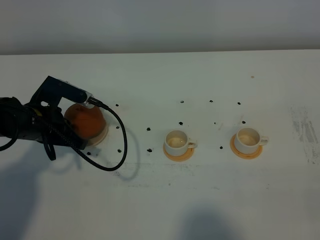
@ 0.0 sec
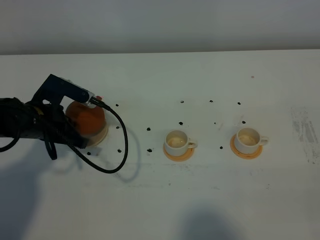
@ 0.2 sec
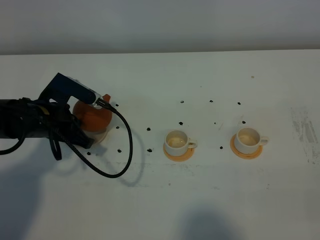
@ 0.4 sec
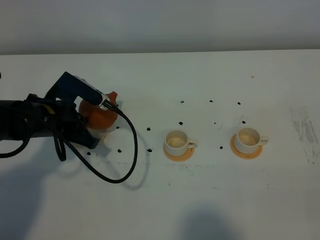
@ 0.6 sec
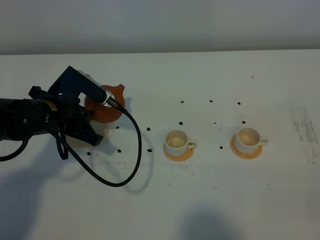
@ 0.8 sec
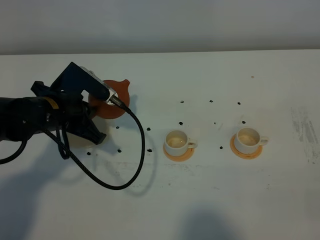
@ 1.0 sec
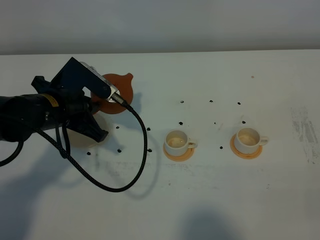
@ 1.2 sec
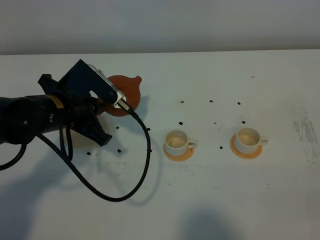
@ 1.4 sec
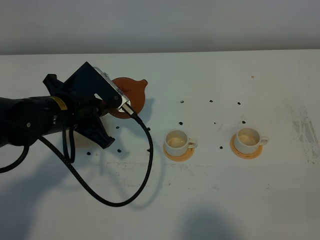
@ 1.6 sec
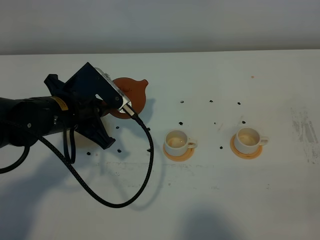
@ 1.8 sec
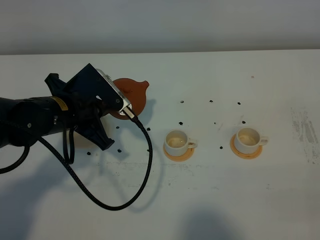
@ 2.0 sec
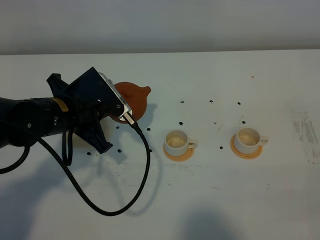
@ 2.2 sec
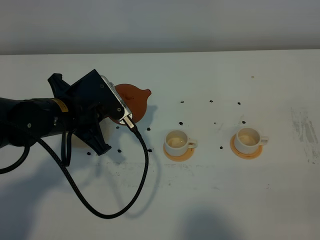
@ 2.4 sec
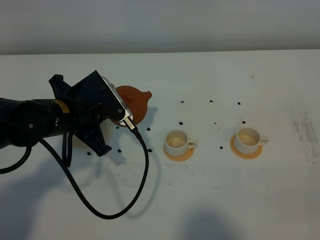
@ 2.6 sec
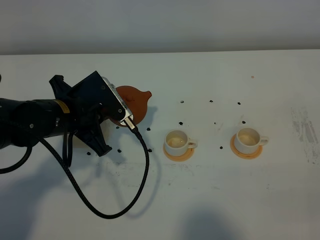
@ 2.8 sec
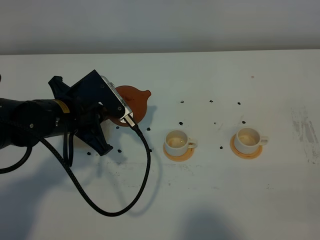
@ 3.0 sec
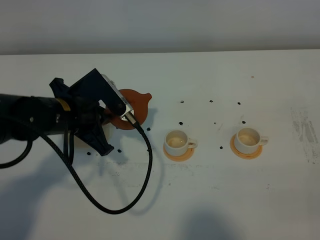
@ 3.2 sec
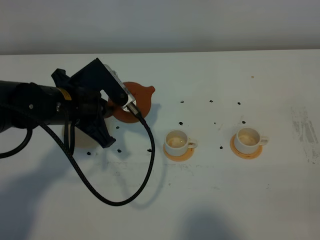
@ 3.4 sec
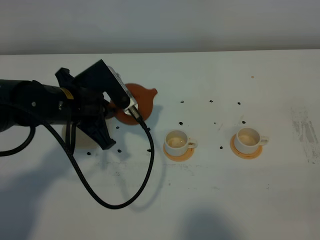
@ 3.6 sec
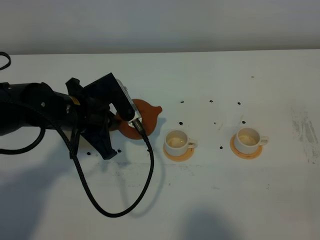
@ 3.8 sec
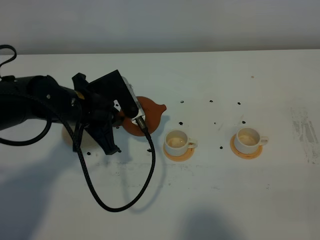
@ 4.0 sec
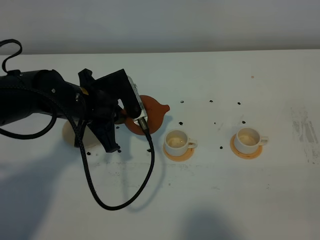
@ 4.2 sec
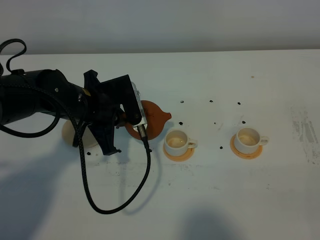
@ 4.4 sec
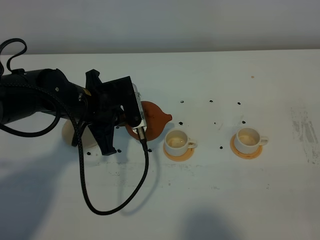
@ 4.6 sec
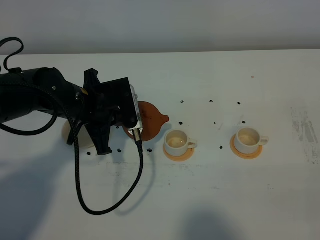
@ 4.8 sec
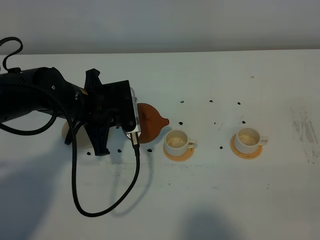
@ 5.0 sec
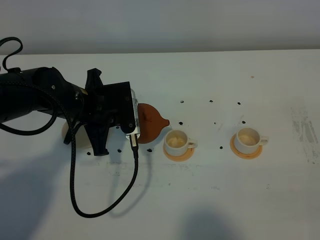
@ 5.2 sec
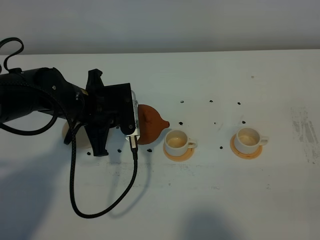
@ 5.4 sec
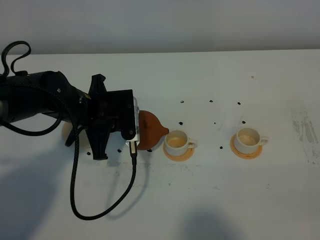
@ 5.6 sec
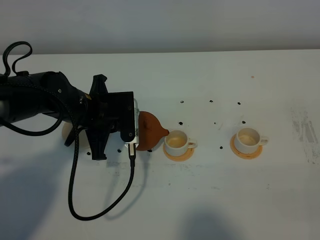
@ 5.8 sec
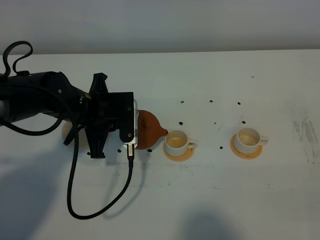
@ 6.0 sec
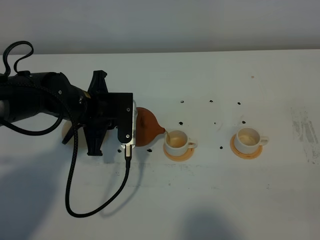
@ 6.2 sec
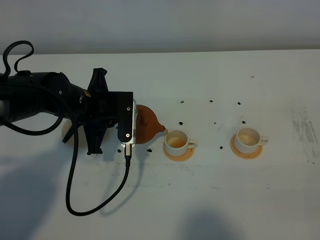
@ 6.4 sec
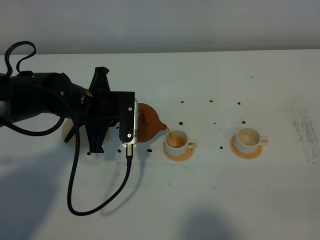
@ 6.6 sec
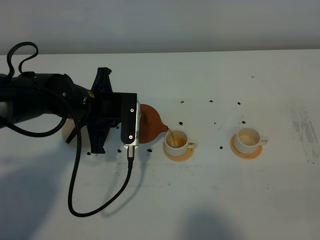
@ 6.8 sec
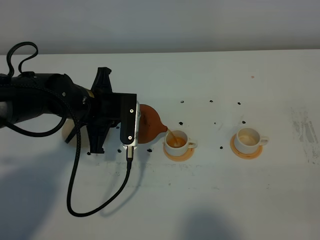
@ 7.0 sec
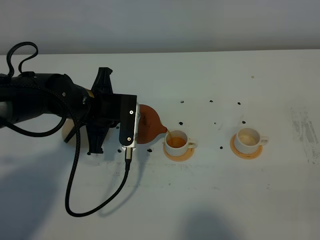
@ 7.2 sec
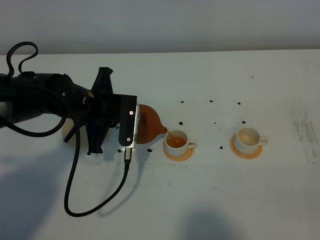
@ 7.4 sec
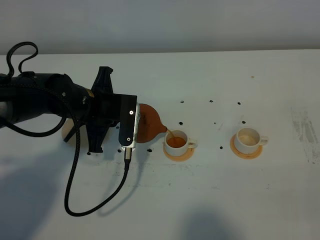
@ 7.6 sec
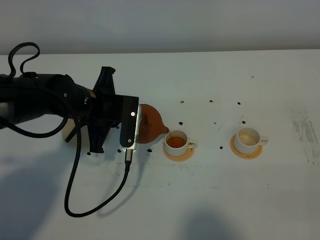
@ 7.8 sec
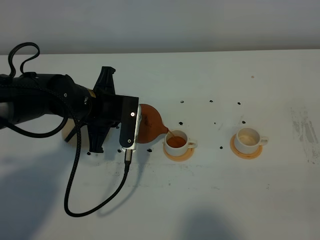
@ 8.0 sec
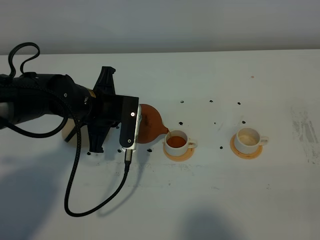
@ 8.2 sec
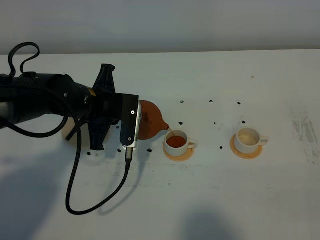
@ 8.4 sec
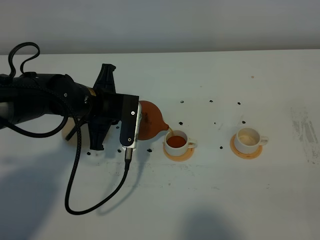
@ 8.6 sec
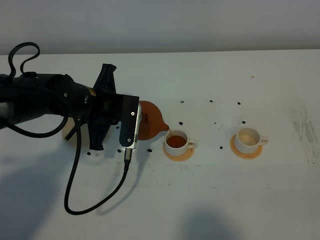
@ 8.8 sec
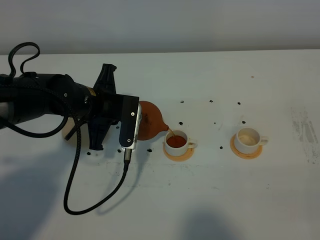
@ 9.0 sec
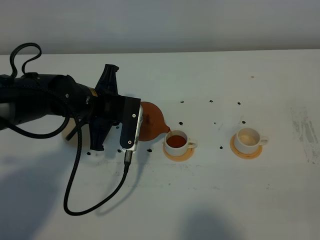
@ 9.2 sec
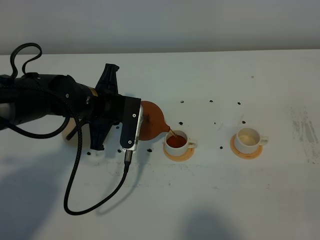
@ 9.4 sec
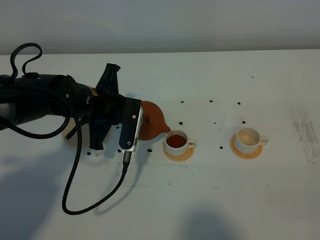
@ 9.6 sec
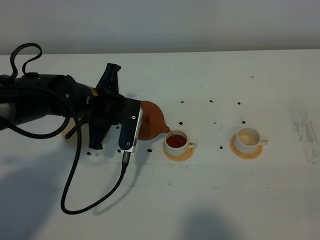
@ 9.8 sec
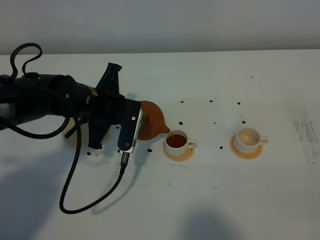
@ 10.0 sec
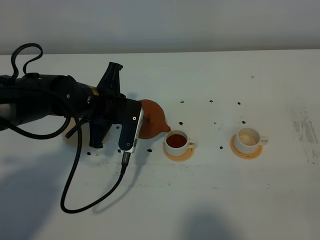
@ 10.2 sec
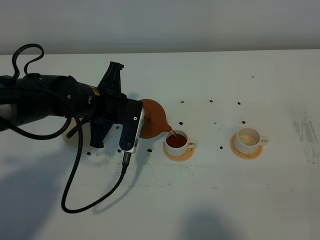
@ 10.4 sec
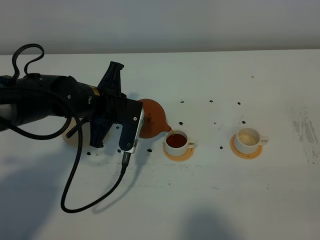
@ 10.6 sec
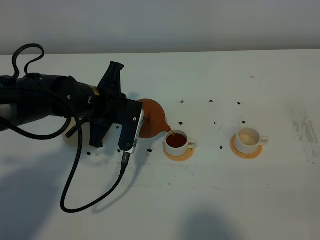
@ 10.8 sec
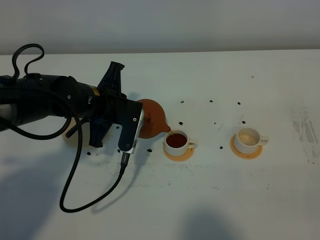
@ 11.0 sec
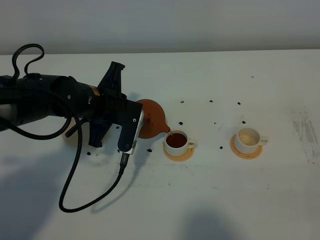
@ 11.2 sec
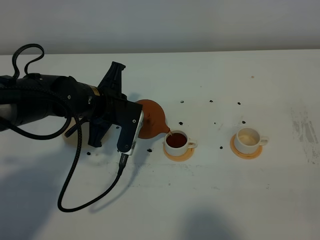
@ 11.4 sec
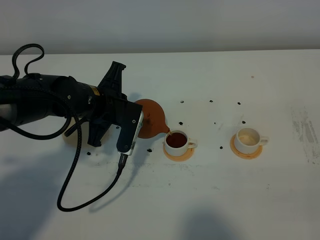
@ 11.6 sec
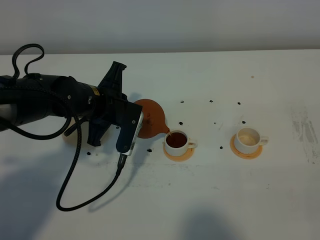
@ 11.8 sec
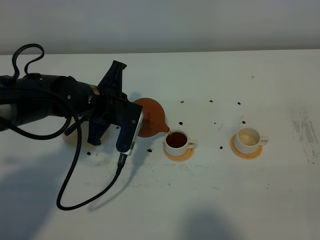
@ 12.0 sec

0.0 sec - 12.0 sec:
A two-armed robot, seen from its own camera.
Task of the whole recording: grasp the brown teapot and pour the tea into the two white teacups one by one, put the brown teapot back in its original place.
0.0 sec - 1.6 sec: The left gripper travels to the right and upward by some 10 cm.
1.6 sec - 3.0 sec: The grippers move only a little.
4.4 sec - 6.0 sec: There are only small adjustments of the grippers.
6.0 sec - 7.6 sec: There are only small adjustments of the grippers.
7.6 sec - 9.0 sec: The two grippers keep their place.
9.0 sec - 12.0 sec: There are only small adjustments of the grippers.

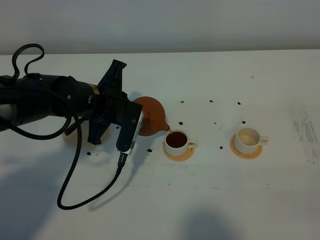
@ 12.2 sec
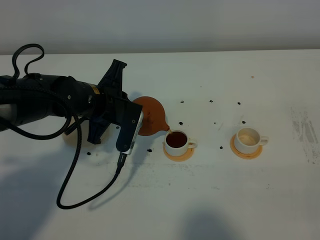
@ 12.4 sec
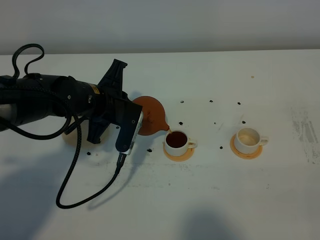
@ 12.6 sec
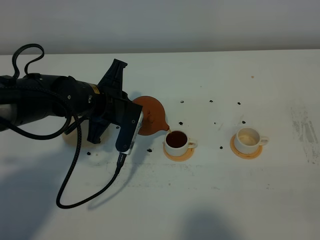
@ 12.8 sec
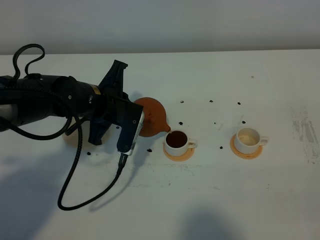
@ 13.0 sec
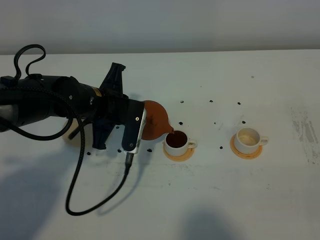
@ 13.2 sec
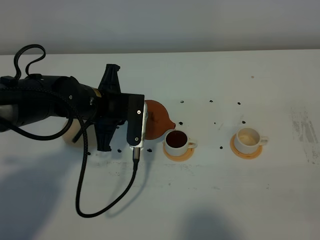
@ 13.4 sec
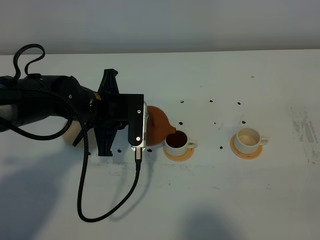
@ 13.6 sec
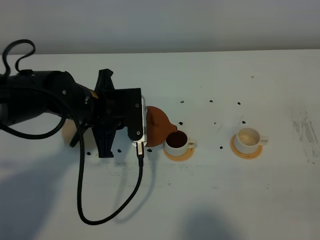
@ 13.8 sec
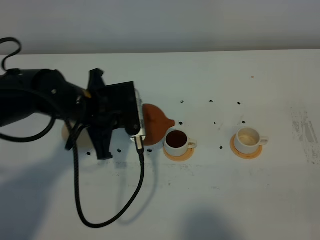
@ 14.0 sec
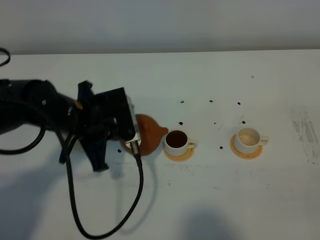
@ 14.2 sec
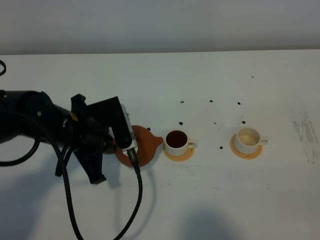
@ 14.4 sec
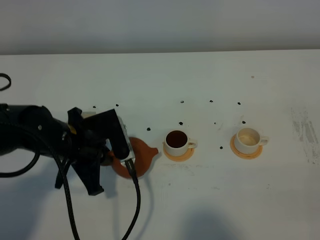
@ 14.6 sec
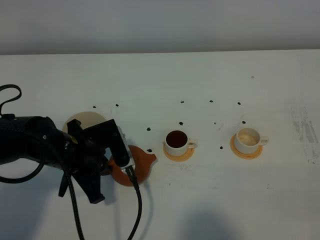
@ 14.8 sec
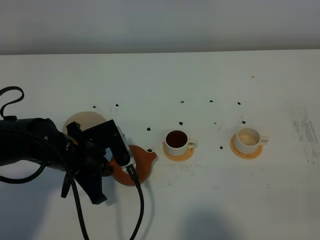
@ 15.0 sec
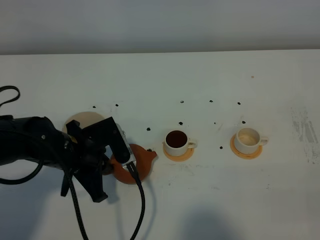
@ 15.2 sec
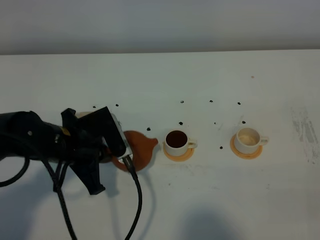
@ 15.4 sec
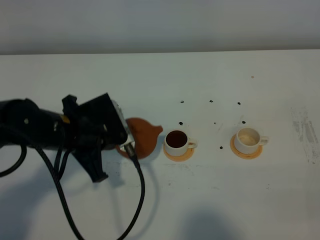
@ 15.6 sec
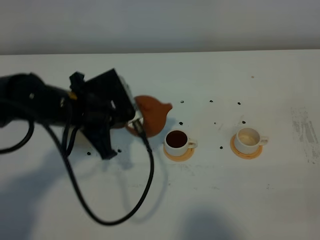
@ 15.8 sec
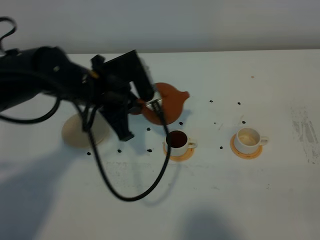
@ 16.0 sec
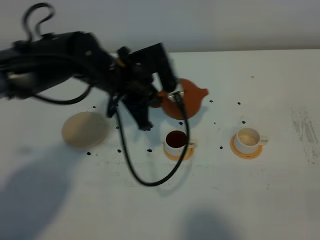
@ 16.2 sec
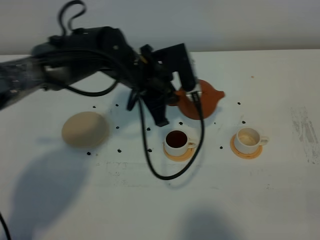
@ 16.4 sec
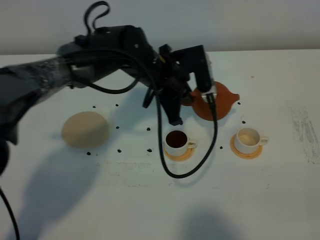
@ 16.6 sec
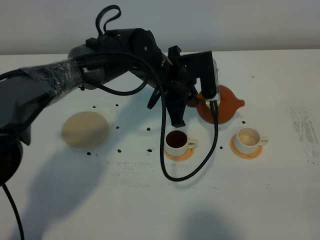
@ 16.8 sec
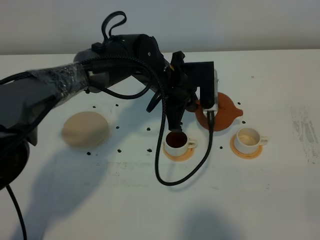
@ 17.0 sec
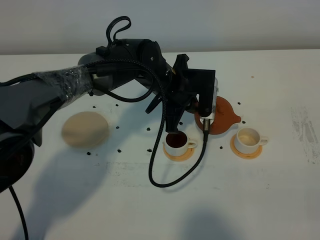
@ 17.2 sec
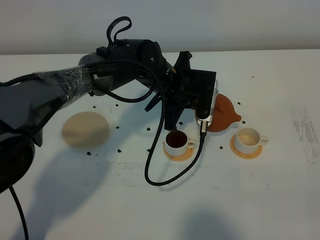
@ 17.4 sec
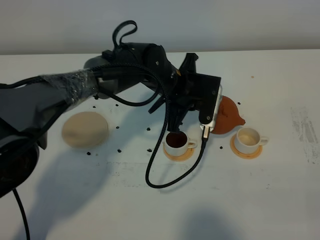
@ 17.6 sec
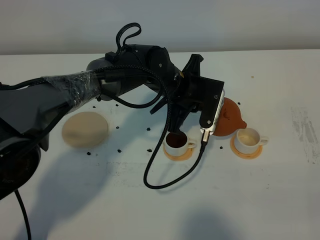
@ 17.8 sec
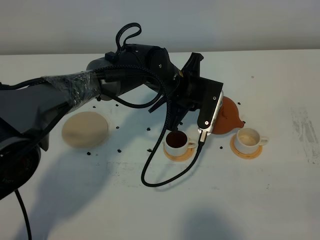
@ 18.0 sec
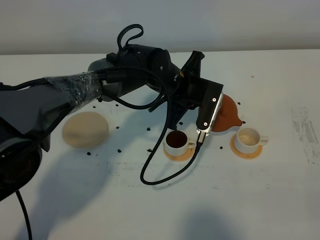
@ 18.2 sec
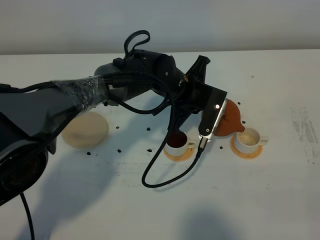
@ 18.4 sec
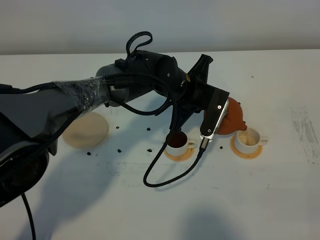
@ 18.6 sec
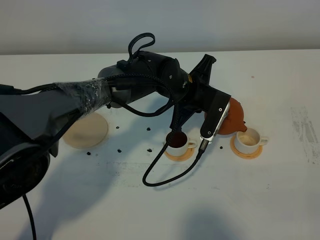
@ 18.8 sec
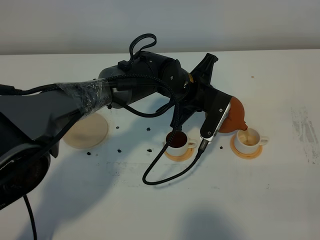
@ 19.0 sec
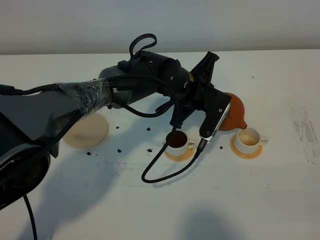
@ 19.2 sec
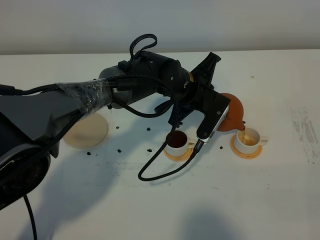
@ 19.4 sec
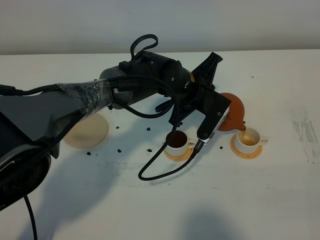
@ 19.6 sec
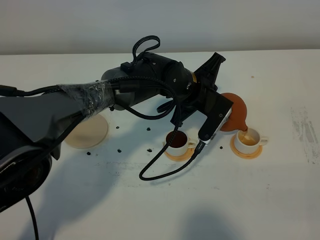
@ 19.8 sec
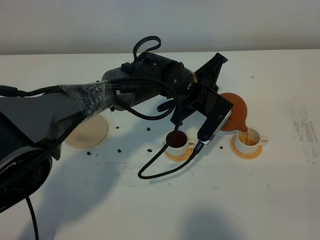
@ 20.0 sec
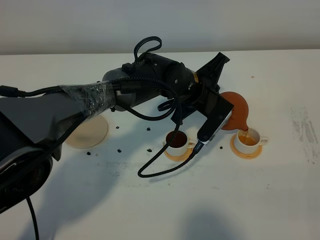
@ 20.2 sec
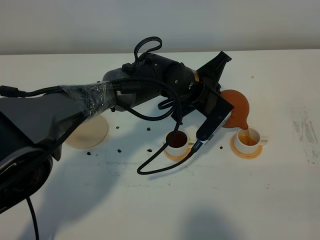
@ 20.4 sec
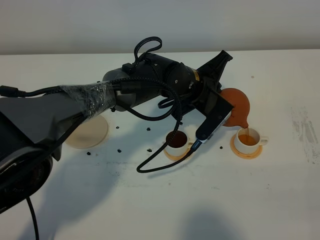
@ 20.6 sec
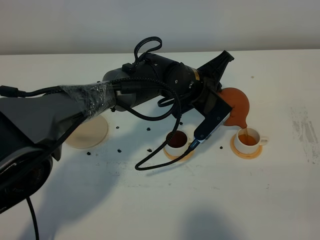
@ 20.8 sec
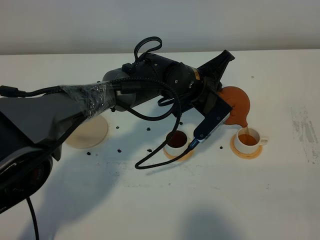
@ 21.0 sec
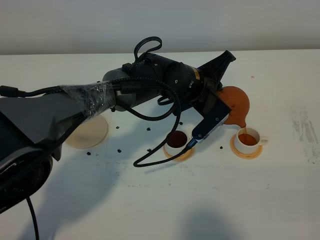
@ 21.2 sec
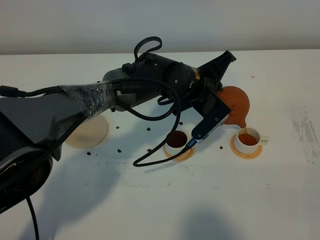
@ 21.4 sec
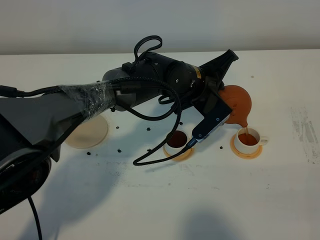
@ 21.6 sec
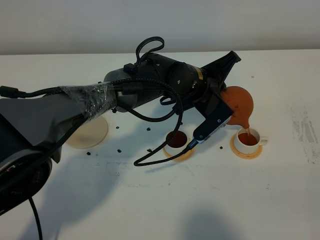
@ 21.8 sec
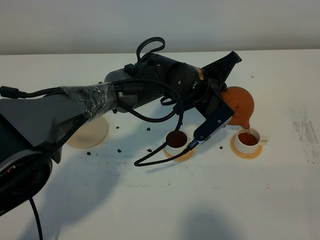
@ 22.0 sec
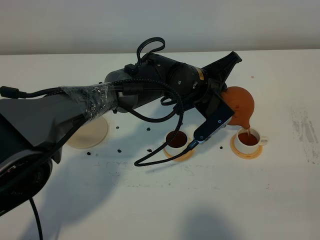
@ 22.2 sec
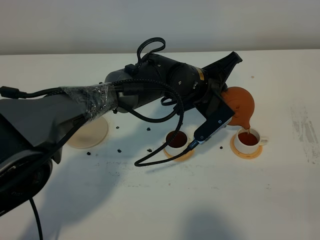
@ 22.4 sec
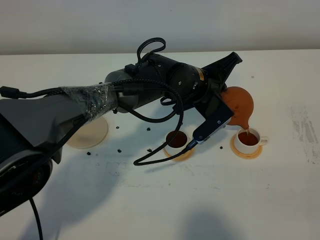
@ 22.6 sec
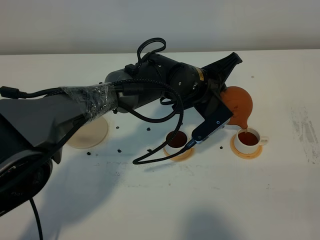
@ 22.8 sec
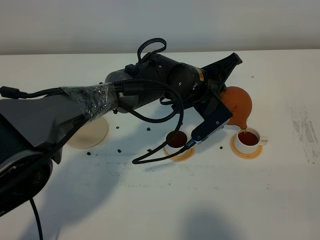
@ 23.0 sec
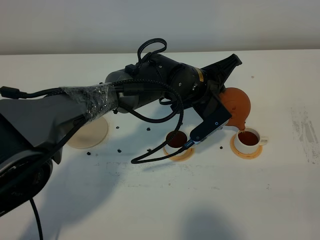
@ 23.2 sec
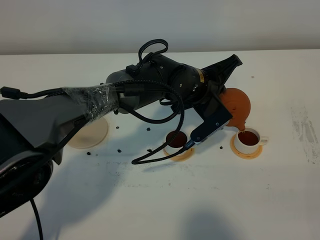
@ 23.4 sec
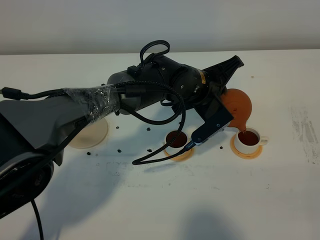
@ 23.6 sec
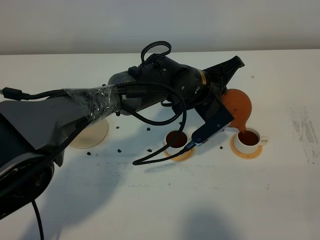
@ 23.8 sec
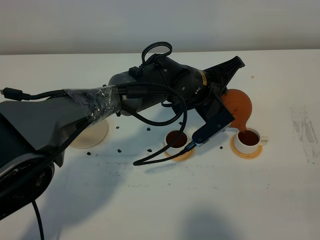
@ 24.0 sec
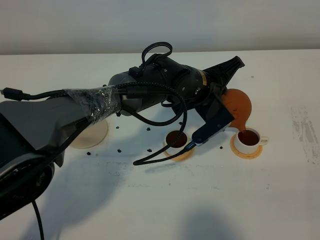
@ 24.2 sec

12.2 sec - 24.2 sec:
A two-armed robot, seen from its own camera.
Task of the whole recording: grasp the brown teapot and pour the tea into the two white teacups one by one, put the brown teapot back in its original place.
13.8 sec - 15.2 sec: The left gripper moves backward, approximately 5 cm.
15.2 sec - 16.6 sec: The left gripper shifts approximately 20 cm to the right and forward.
18.2 sec - 19.8 sec: There are only small adjustments of the grippers.
19.8 sec - 21.2 sec: The grippers stay close to where they were, moving slightly.
21.2 sec - 22.6 sec: Neither gripper changes place.
22.6 sec - 24.2 sec: The two grippers keep their place.
